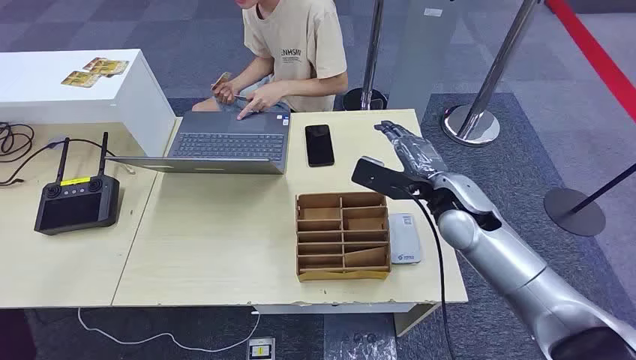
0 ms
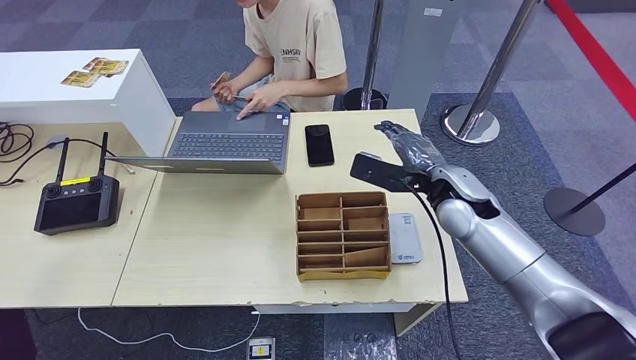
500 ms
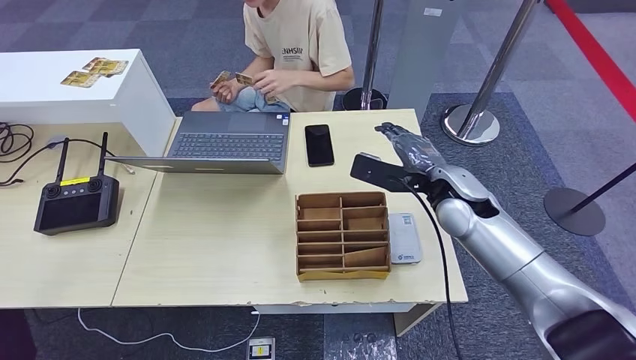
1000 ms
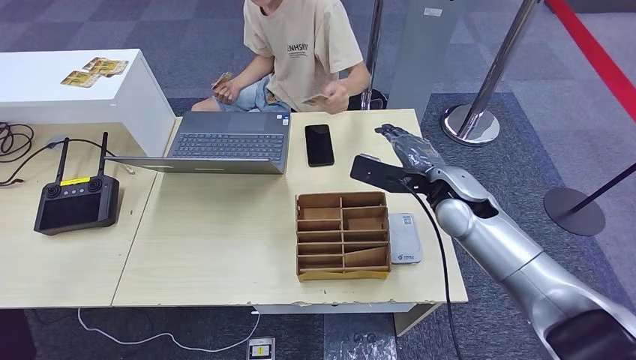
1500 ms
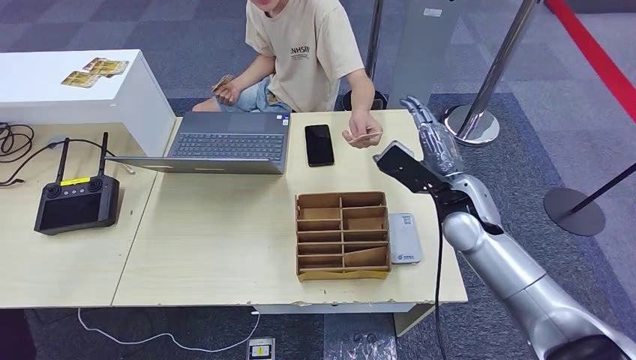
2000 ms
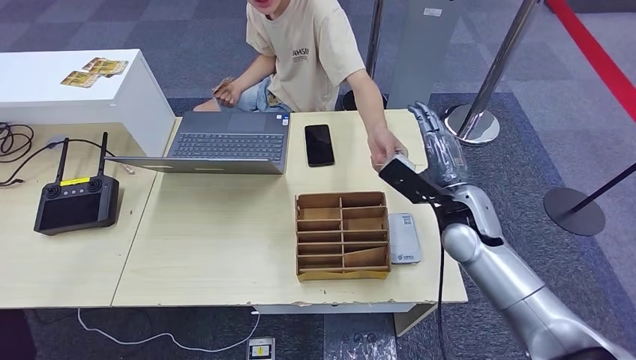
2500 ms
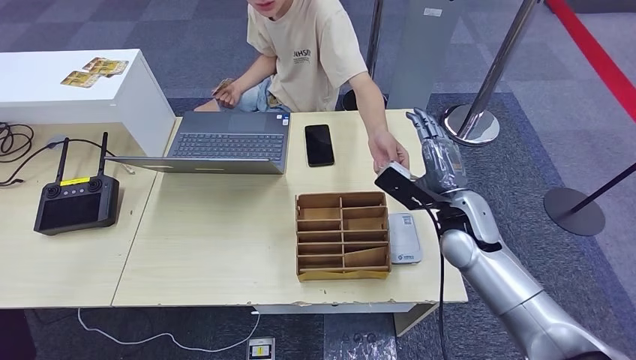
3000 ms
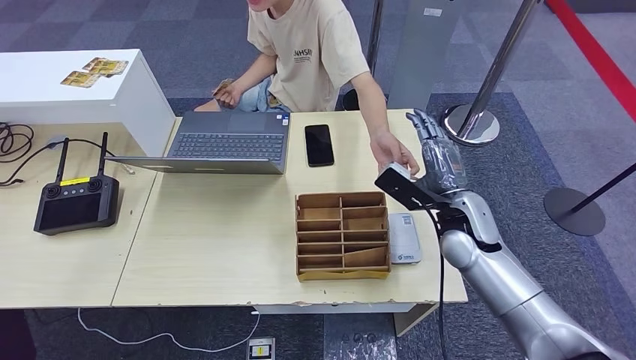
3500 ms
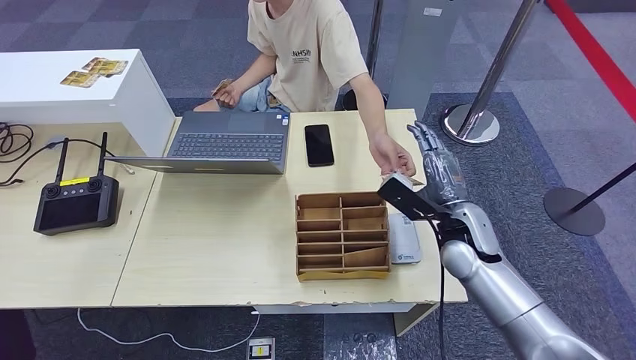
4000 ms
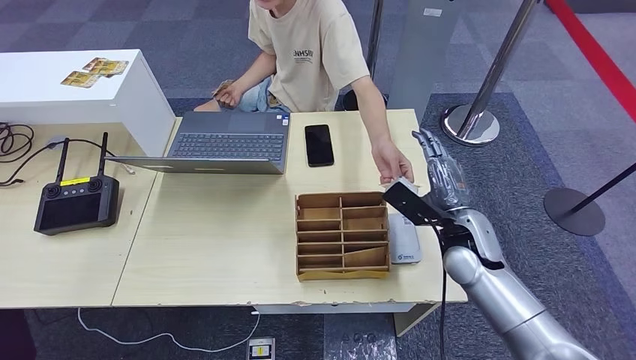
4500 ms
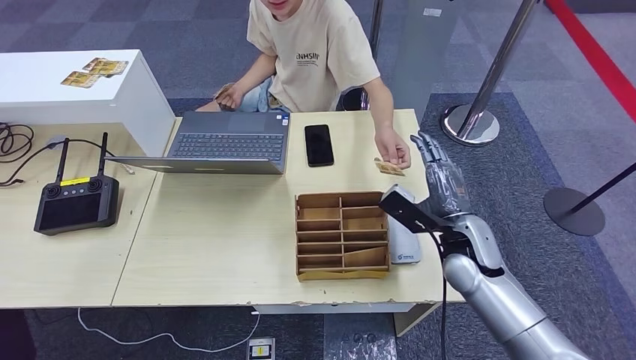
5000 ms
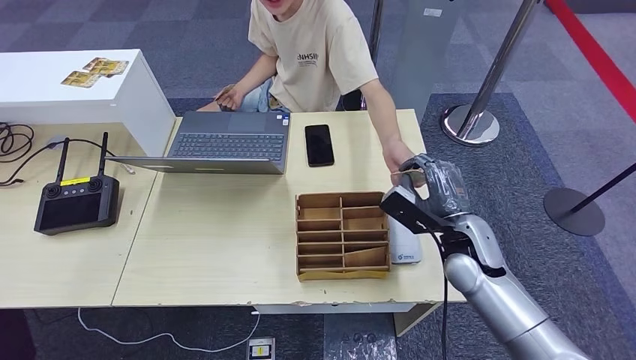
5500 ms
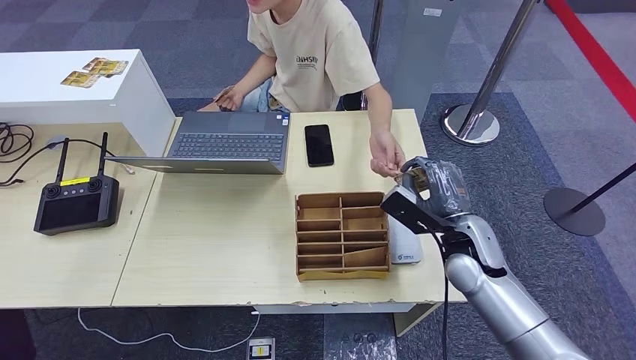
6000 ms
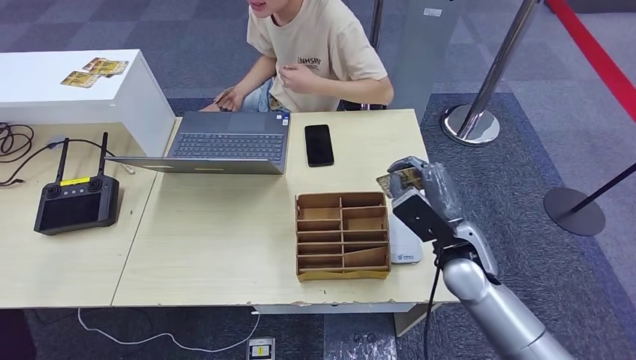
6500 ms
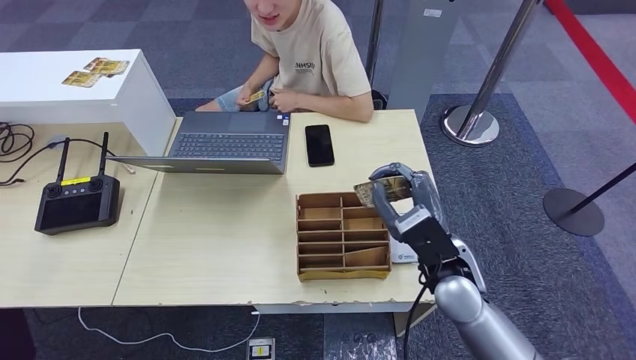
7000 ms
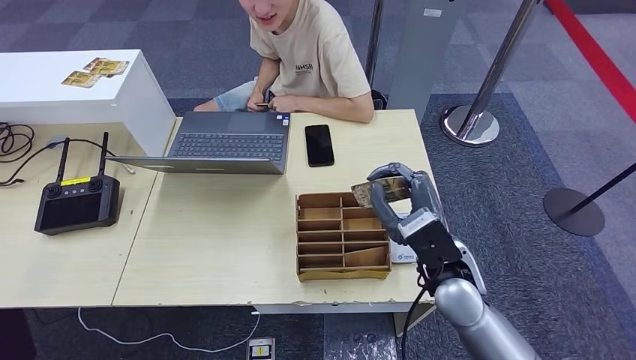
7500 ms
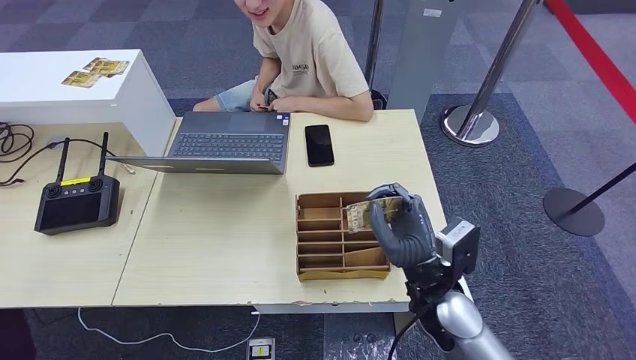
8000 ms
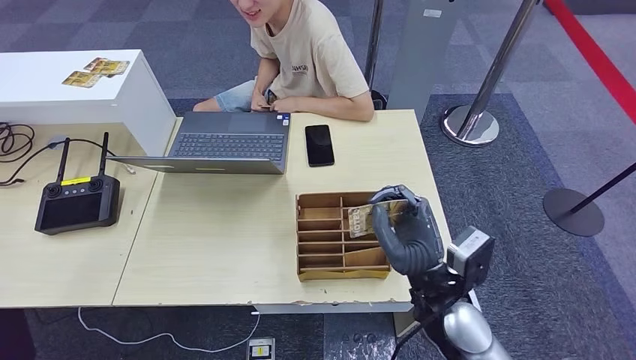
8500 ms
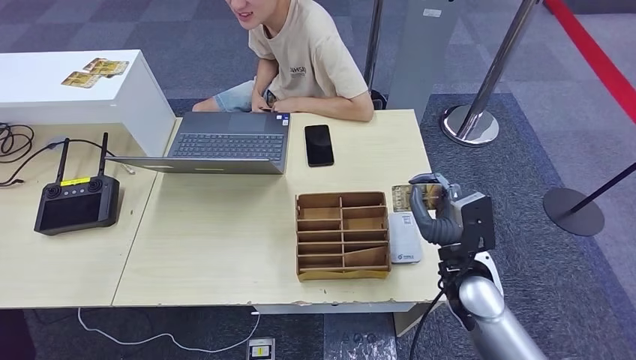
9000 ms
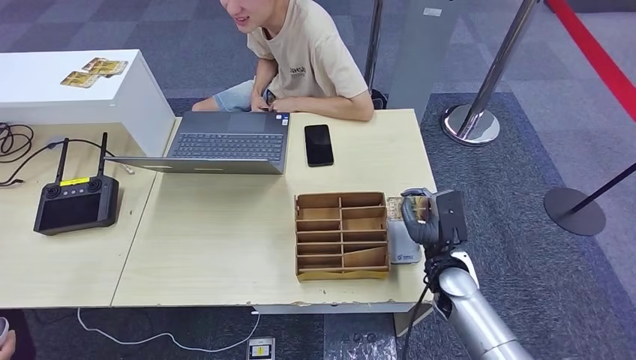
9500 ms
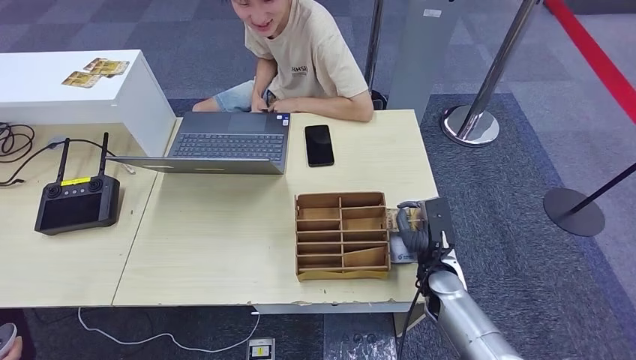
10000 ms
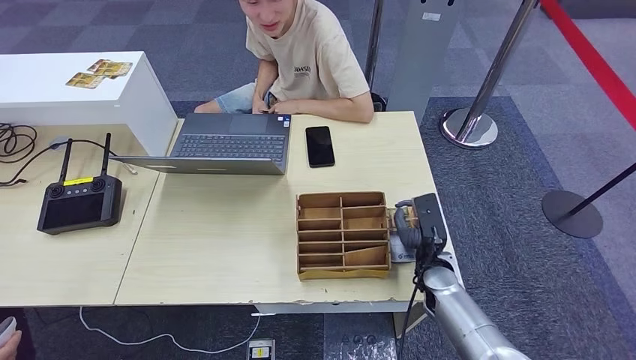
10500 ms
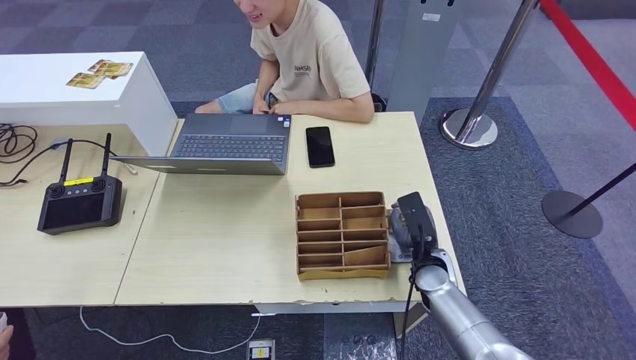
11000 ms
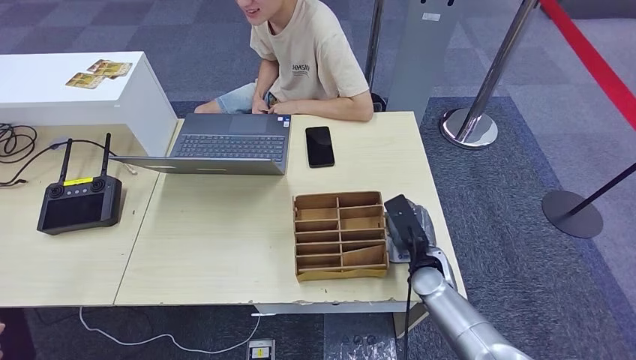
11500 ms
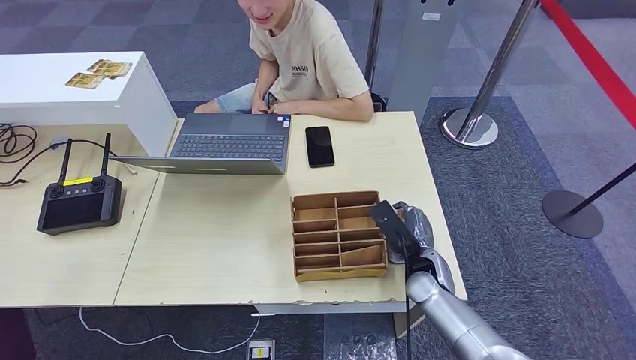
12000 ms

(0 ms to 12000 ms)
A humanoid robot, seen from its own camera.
Step, 0 ms - 6000 ms: Take the ID card from the person's hand.
Step, 6500 ms - 11500 ms: Place the ID card on the card reader.
2000 ms - 4000 ms: The right hand shifts by about 5 cm.
4000 ms - 6000 ms: There are only small adjustments of the hands.
6000 ms - 8000 ms: The right hand travels to the left and backward by roughly 10 cm.
8000 ms - 10000 ms: The right hand travels downward, forward and to the right by some 15 cm.

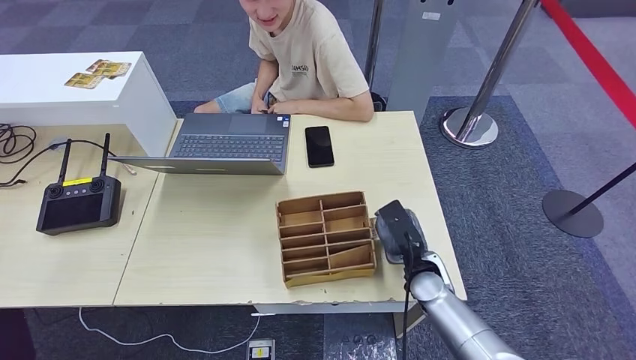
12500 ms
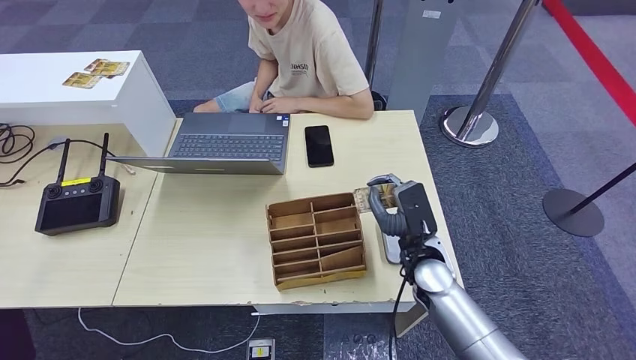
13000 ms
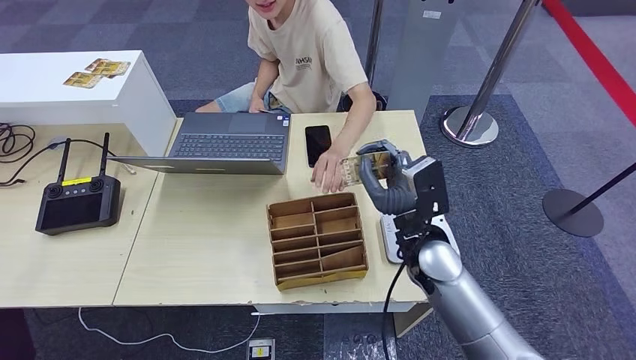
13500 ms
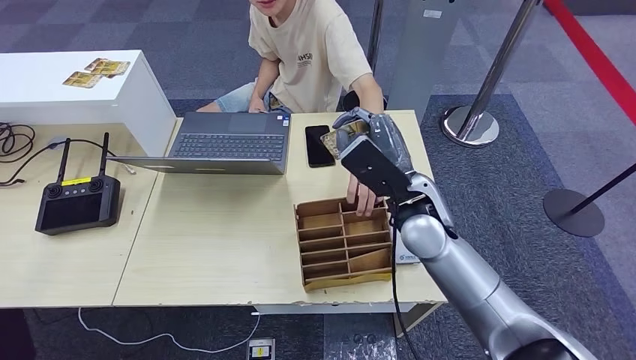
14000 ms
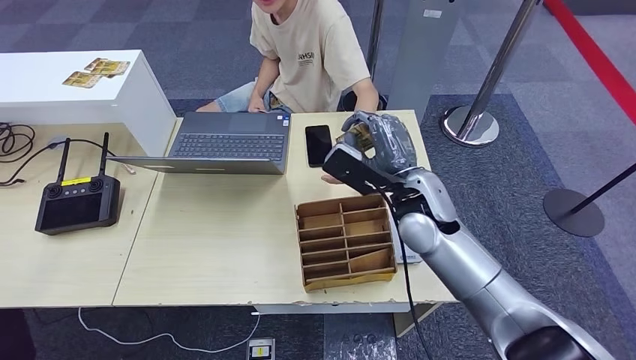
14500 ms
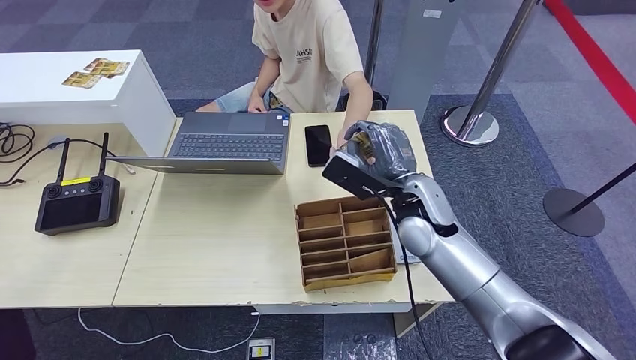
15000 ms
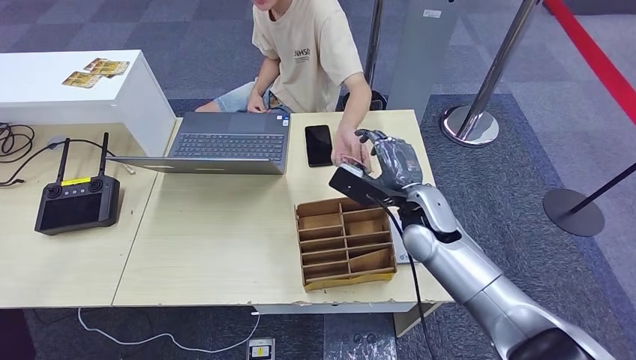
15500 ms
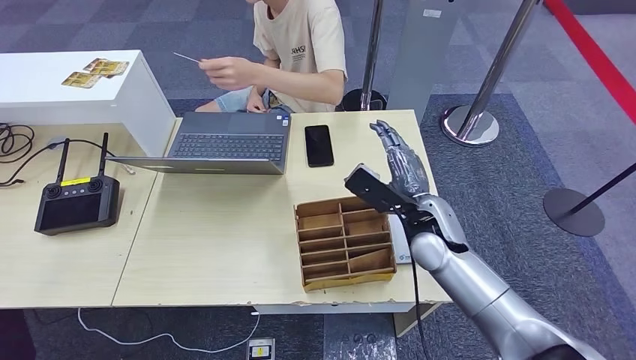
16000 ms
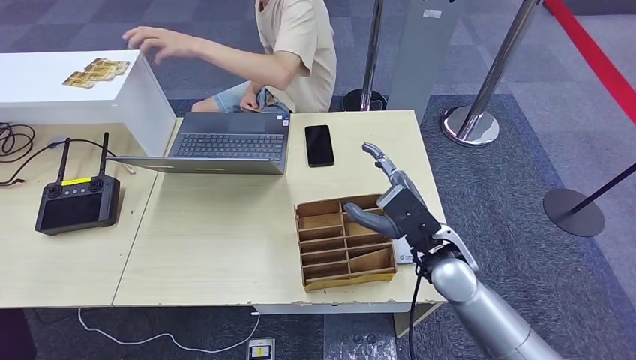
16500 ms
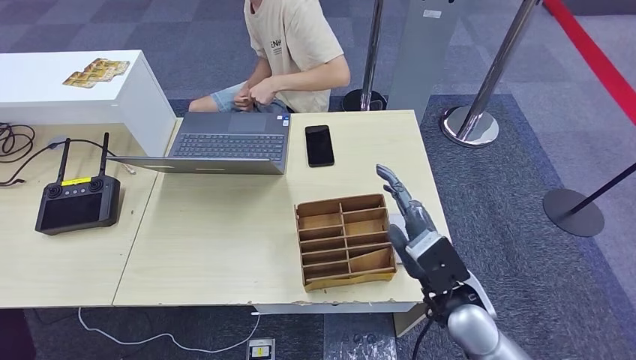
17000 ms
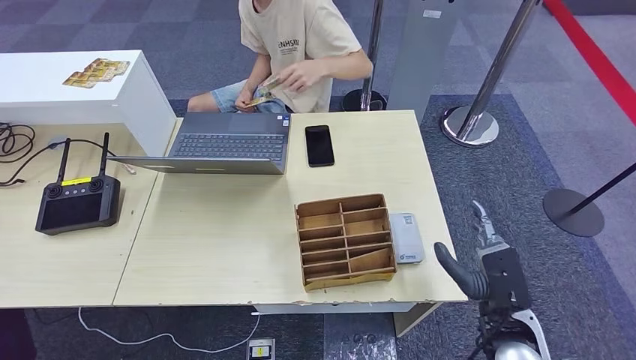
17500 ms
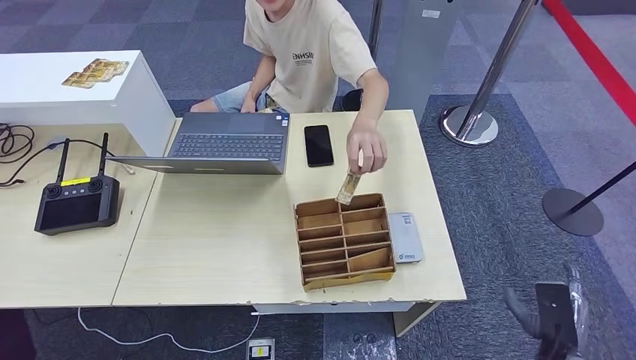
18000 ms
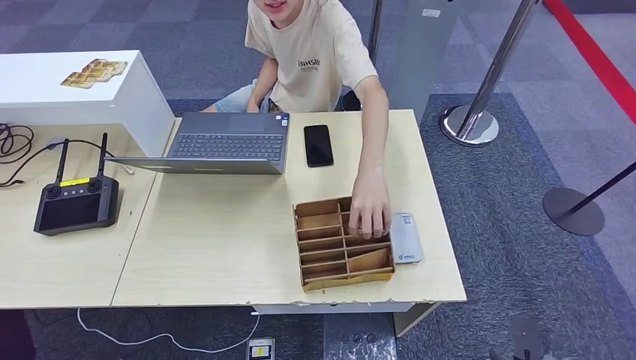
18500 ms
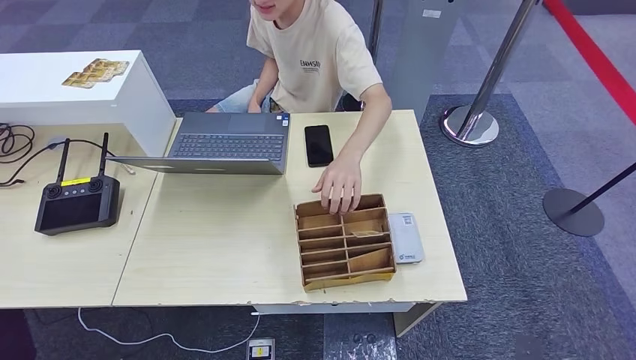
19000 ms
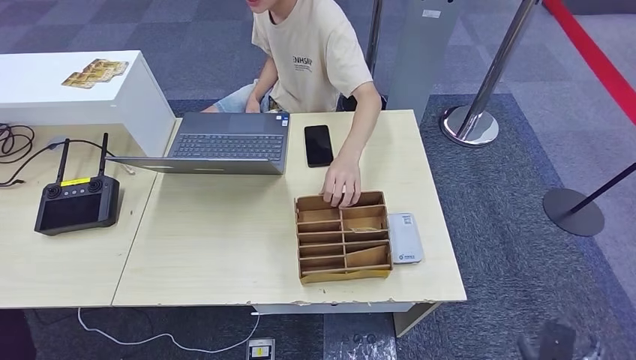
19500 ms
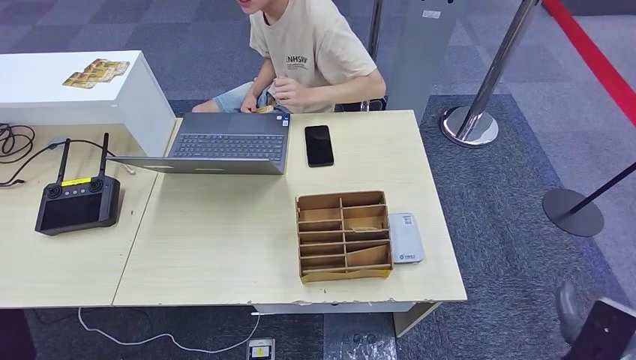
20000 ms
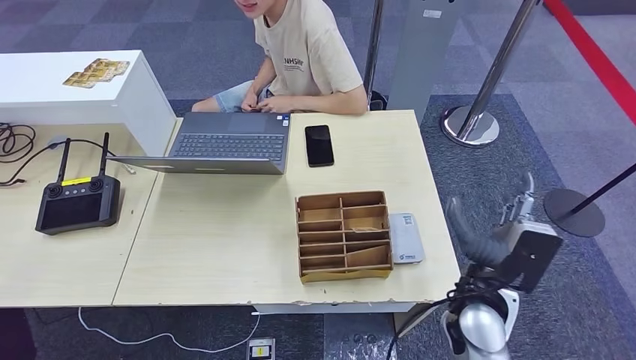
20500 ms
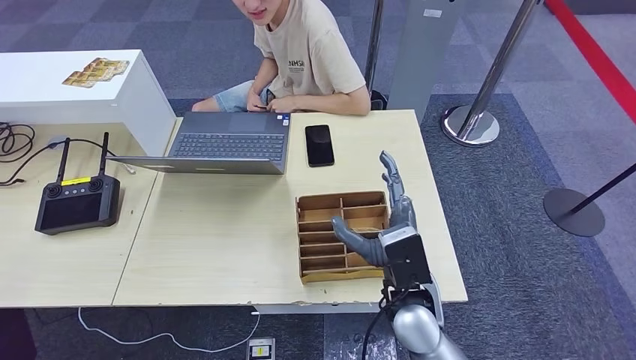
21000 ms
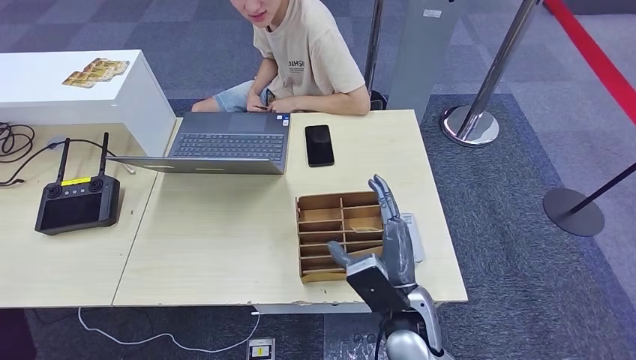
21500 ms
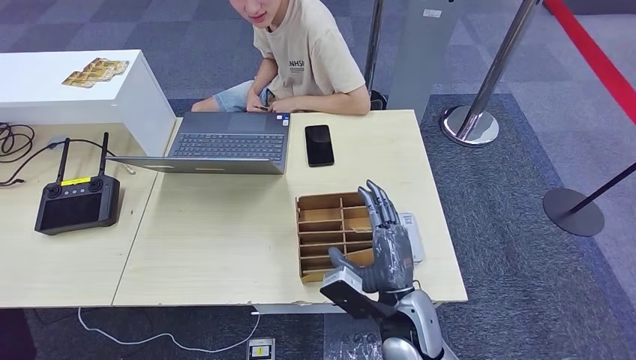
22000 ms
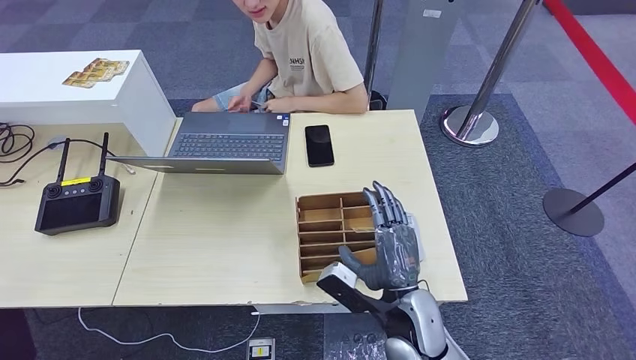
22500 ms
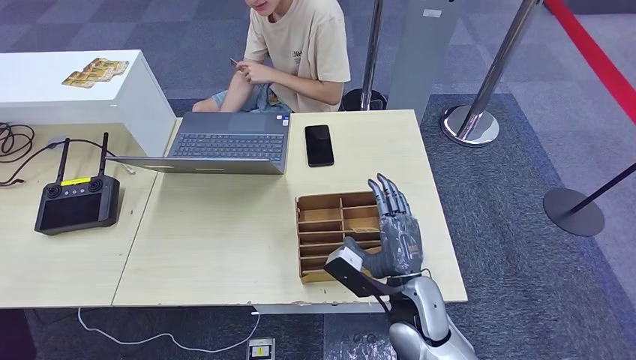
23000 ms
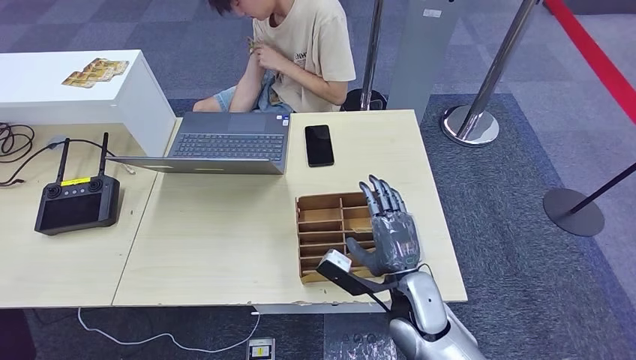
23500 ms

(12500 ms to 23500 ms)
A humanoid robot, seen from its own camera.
Step, 12500 ms - 15500 ms: Hand the ID card to the person.
12500 ms - 14500 ms: The right hand shifts some 20 cm upward.
14500 ms - 16000 ms: The right hand is displaced downward by some 5 cm.
16000 ms - 18000 ms: The right hand moves backward, to the right and downward, about 30 cm.
18000 ms - 20000 ms: The right hand moves about 15 cm downward and comes back.
20000 ms - 21500 ms: The right hand moves to the left, approximately 25 cm.
